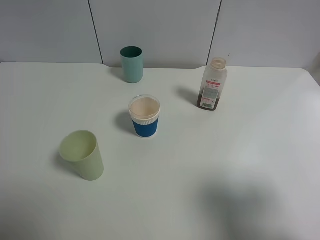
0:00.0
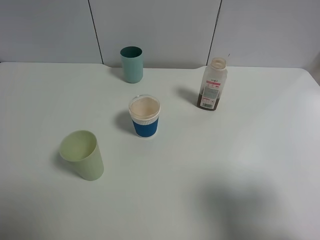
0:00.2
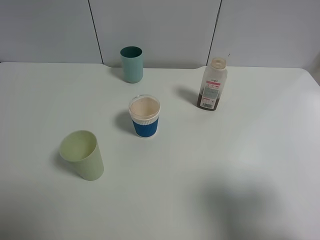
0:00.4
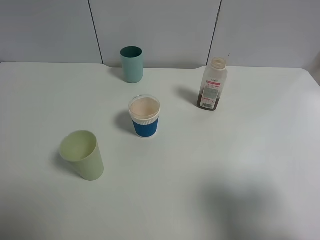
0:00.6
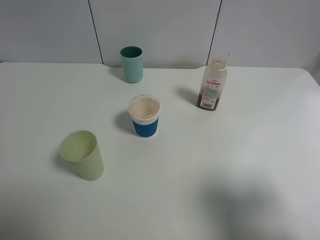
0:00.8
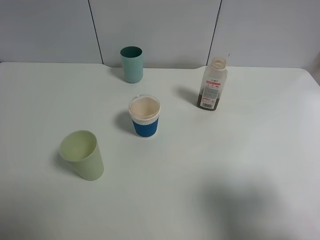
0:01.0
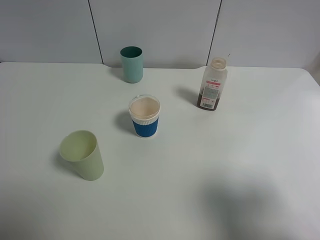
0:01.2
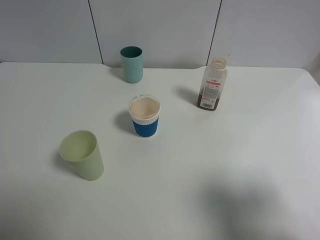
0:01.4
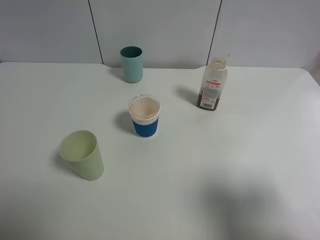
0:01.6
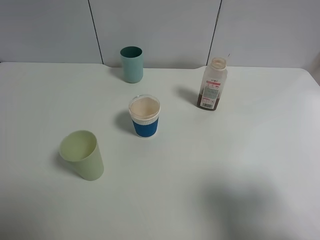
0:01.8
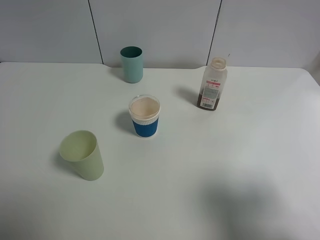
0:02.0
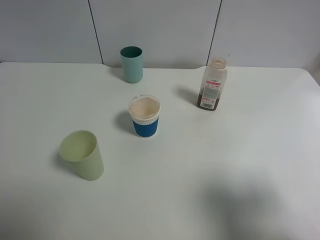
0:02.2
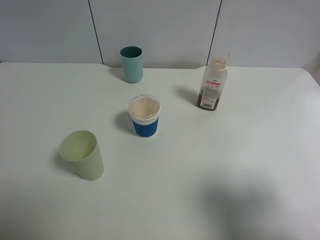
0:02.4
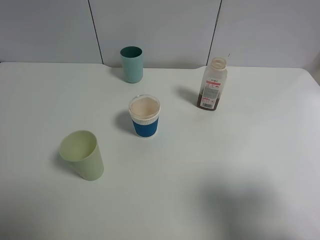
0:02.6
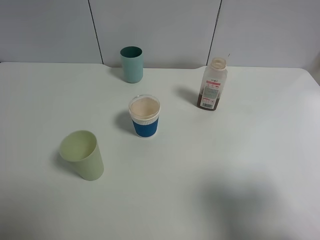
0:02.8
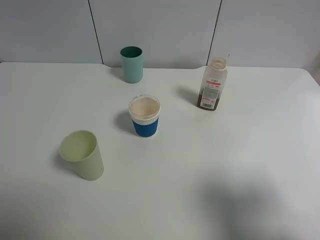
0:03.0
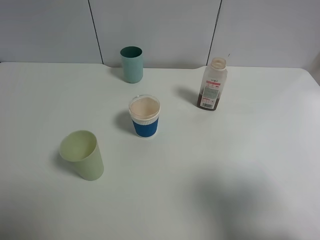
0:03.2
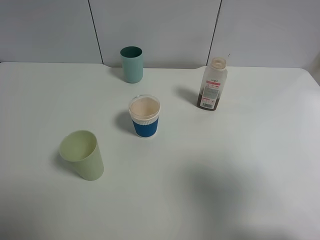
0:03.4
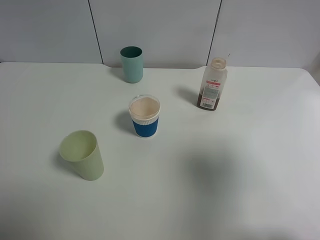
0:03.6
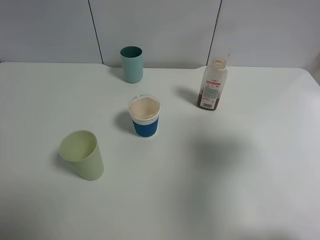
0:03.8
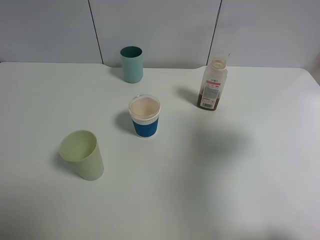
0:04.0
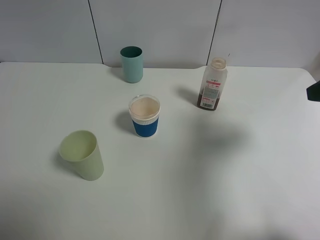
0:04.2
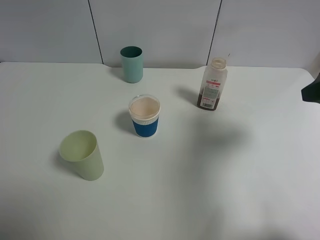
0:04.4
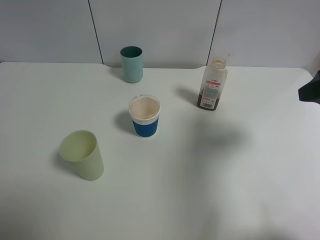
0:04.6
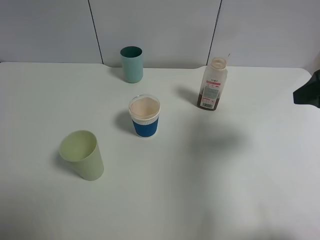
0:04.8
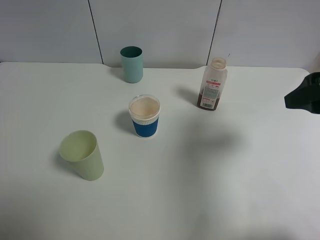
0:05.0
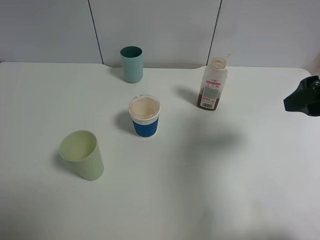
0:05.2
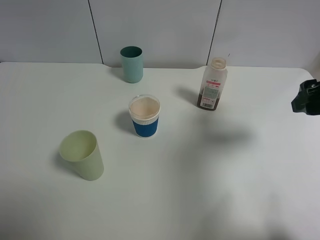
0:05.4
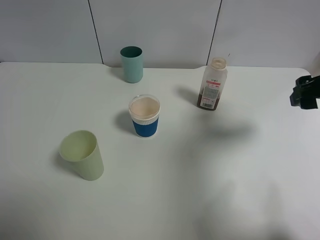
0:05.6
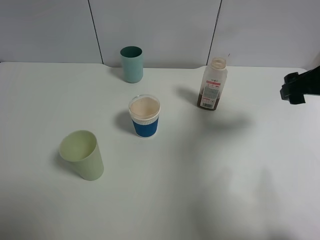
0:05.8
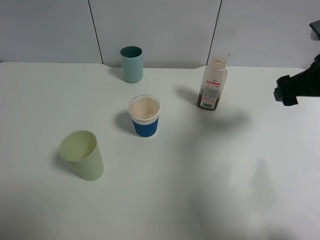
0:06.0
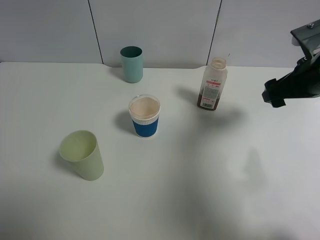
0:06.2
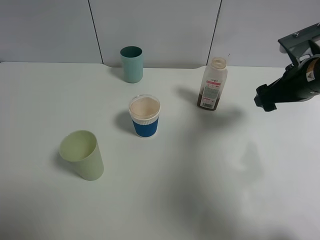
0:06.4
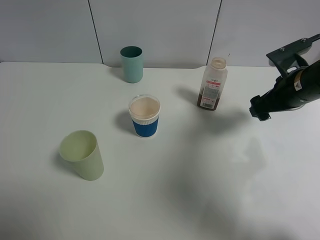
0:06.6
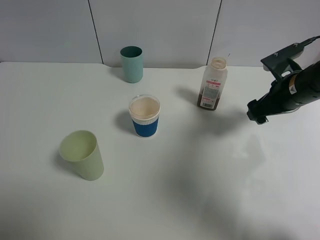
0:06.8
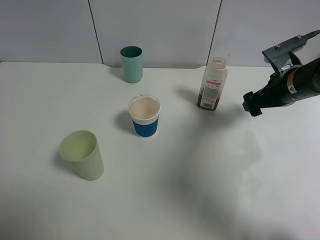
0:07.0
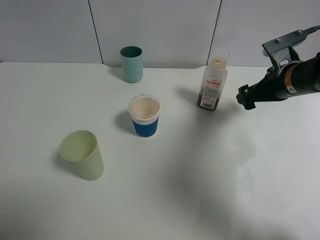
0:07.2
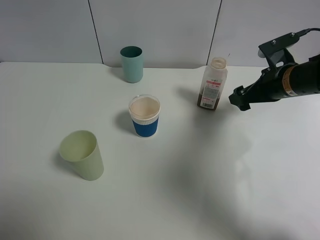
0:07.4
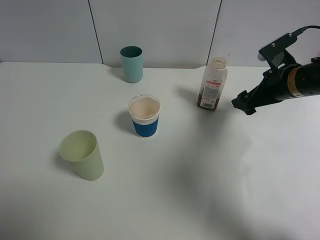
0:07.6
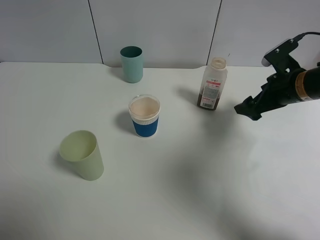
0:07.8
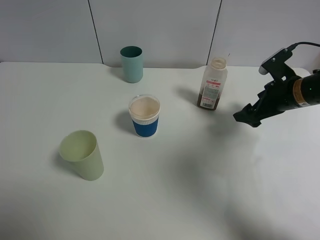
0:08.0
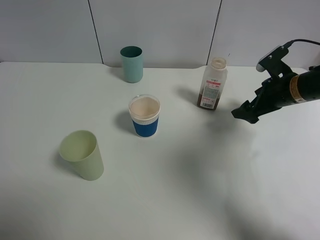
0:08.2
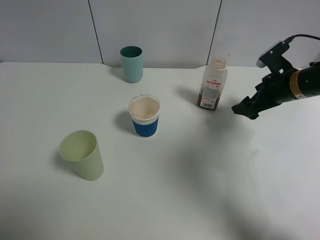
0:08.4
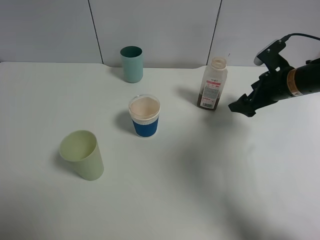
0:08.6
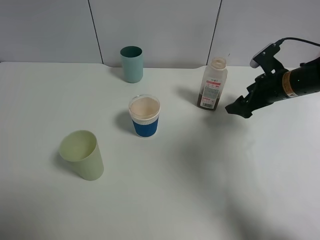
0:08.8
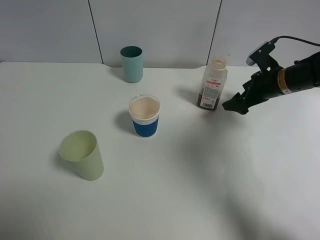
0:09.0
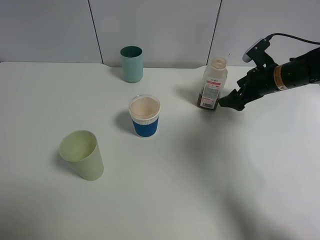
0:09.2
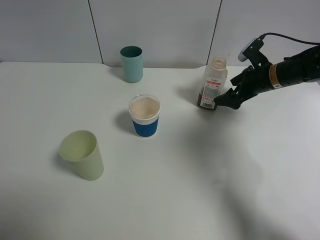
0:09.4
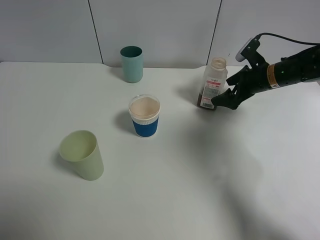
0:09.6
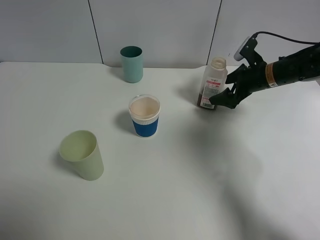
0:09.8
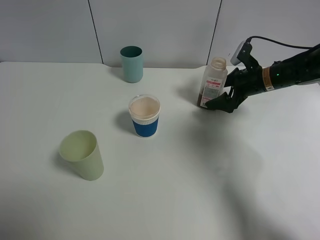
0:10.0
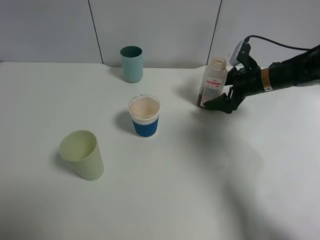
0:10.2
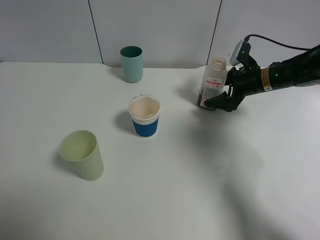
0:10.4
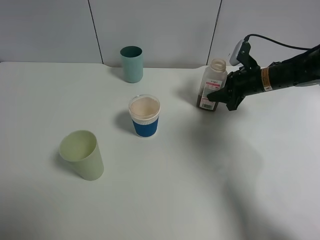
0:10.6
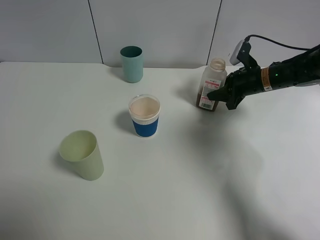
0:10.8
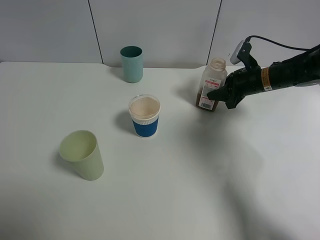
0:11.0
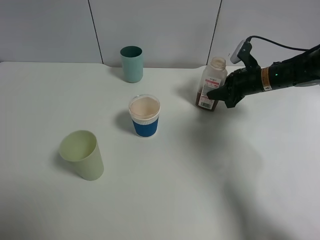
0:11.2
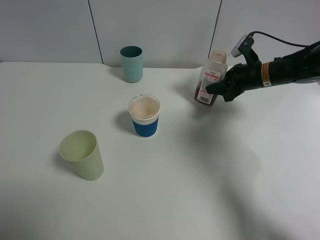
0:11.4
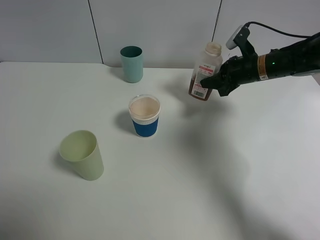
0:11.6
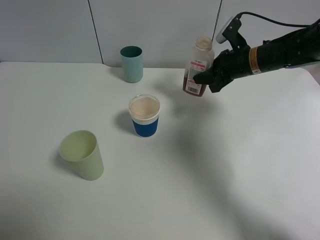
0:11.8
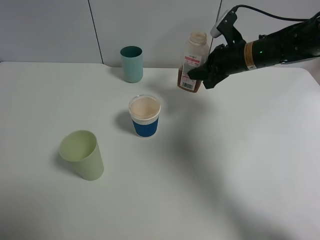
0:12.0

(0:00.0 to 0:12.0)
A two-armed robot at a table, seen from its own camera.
Task of the whole recording: use a gripper to hold the bottle of the drink and pour it into a random cup.
Step, 0:00.0 - 0:10.4: Grasp the cranberry juice bottle with the right gripper.
0:00.0 - 0:03.0: Neither gripper changes place.
0:03.0 - 0:04.4: The right gripper moves forward, approximately 15 cm.
0:04.4 - 0:06.0: The right gripper heads forward and downward, covering roughly 10 cm.
0:06.0 - 0:07.6: The right gripper heads downward and forward, covering roughly 10 cm.
0:07.6 - 0:09.0: The right gripper moves forward, approximately 5 cm.
0:10.4 - 0:12.0: The right gripper moves to the left and upward, roughly 10 cm, and closes its fingers.

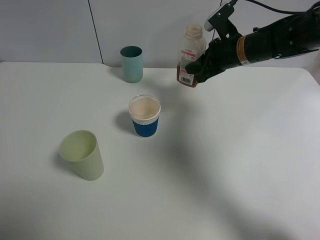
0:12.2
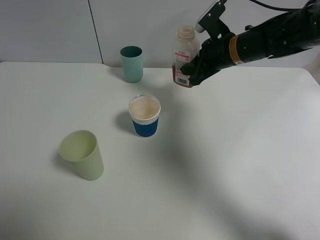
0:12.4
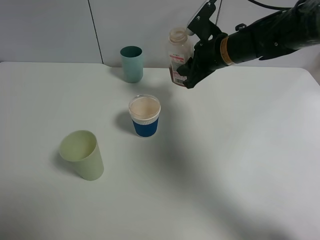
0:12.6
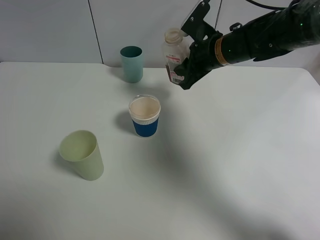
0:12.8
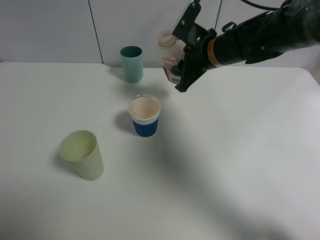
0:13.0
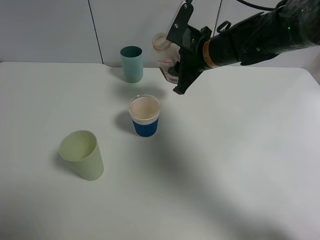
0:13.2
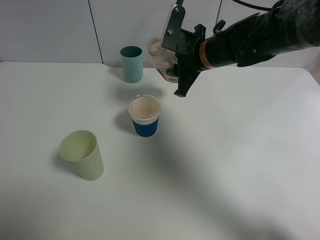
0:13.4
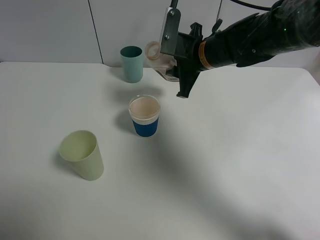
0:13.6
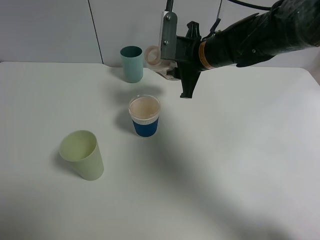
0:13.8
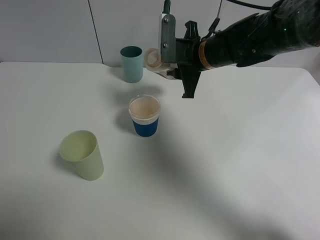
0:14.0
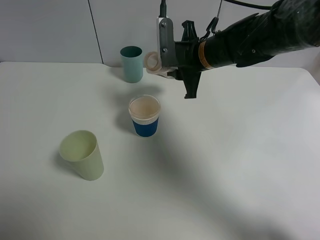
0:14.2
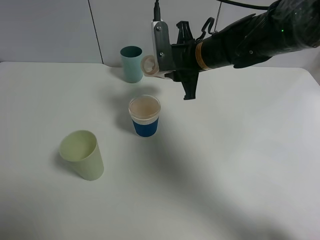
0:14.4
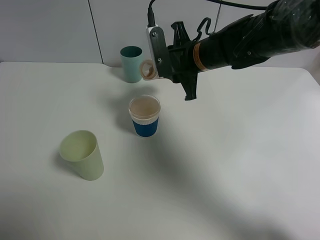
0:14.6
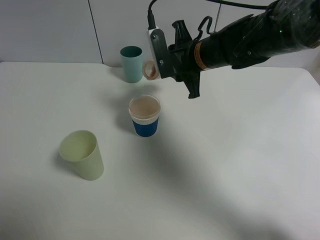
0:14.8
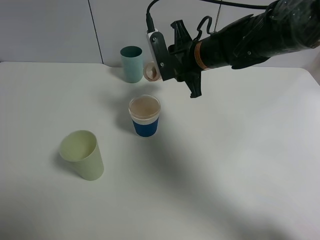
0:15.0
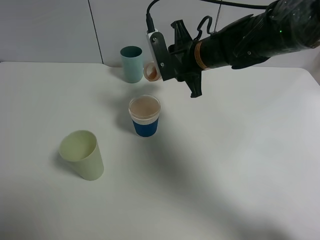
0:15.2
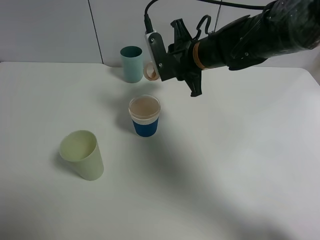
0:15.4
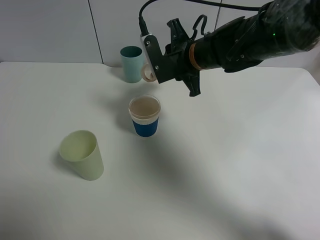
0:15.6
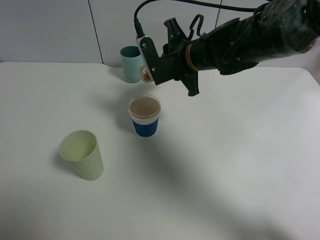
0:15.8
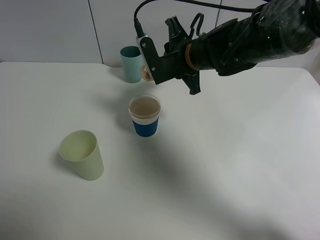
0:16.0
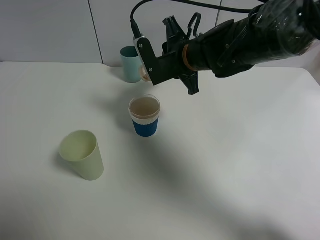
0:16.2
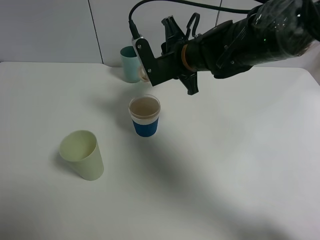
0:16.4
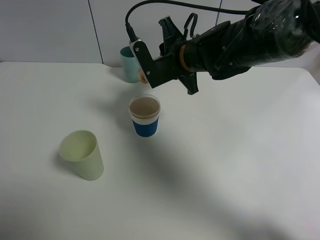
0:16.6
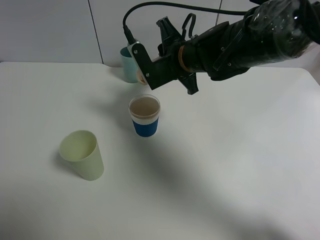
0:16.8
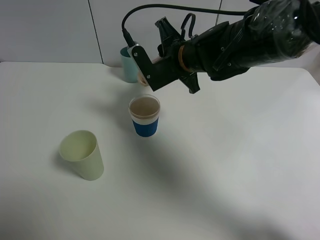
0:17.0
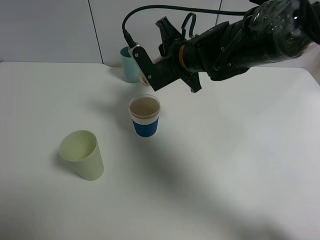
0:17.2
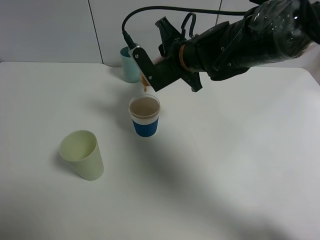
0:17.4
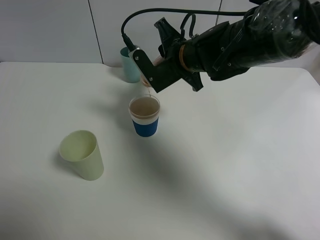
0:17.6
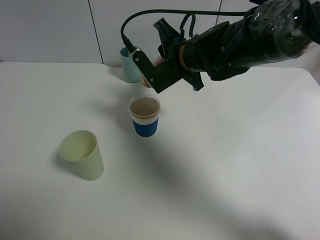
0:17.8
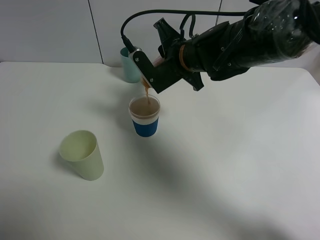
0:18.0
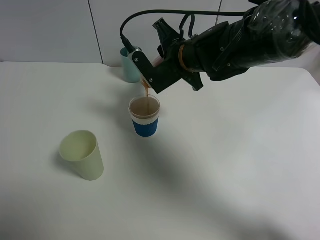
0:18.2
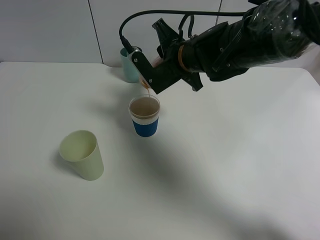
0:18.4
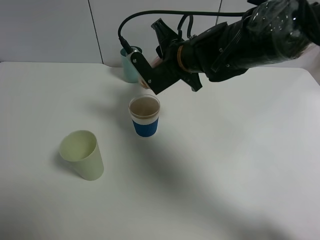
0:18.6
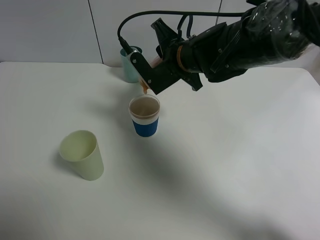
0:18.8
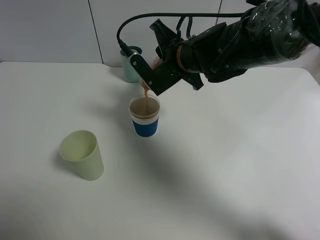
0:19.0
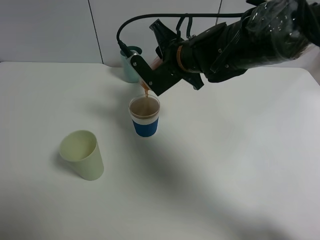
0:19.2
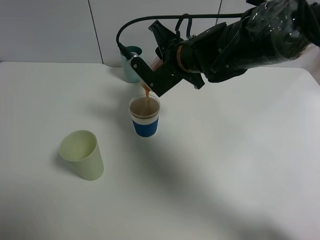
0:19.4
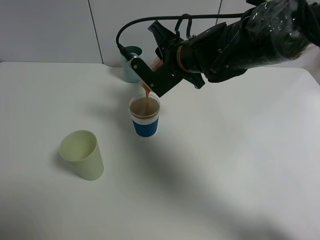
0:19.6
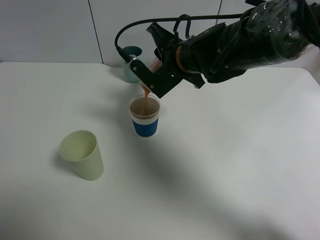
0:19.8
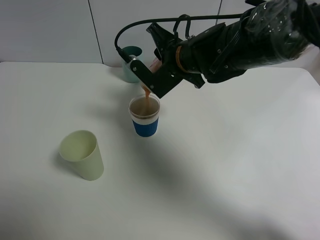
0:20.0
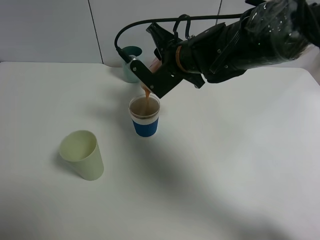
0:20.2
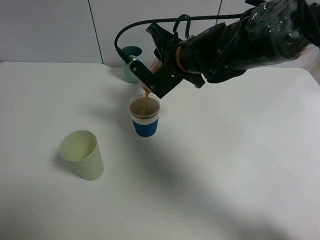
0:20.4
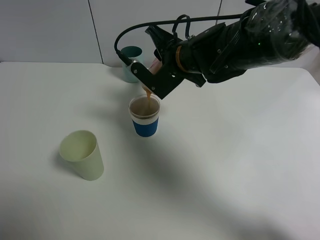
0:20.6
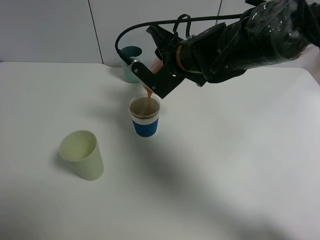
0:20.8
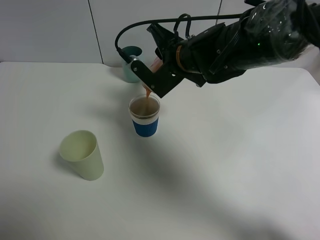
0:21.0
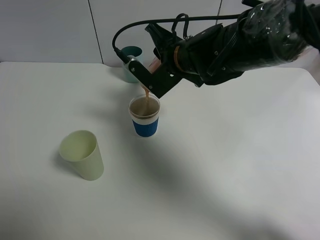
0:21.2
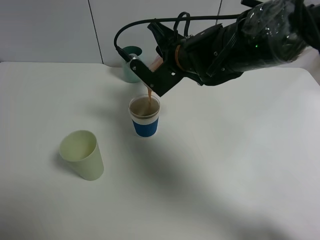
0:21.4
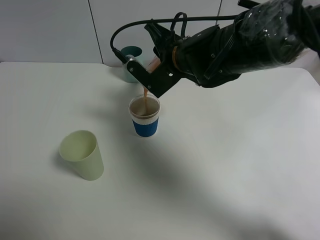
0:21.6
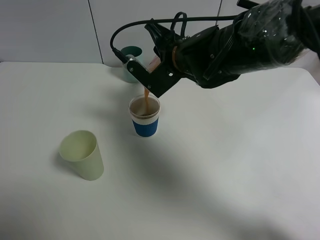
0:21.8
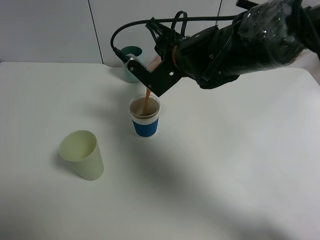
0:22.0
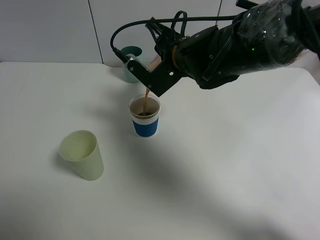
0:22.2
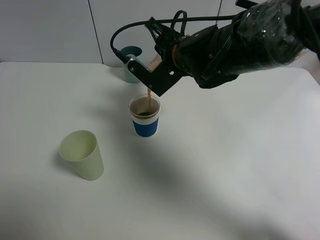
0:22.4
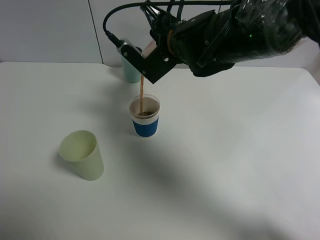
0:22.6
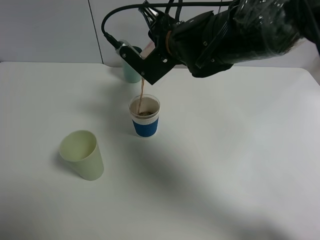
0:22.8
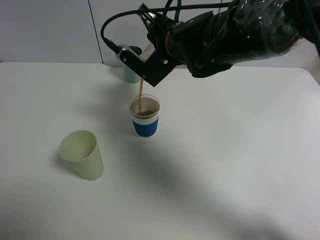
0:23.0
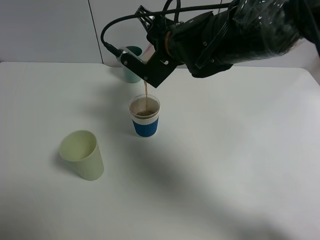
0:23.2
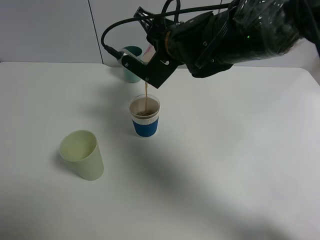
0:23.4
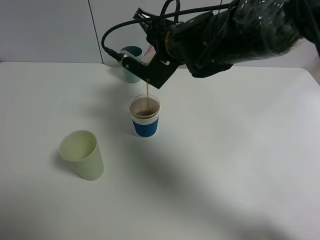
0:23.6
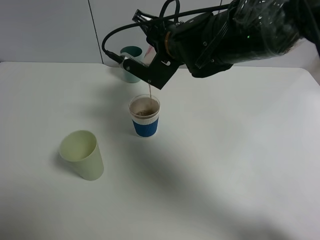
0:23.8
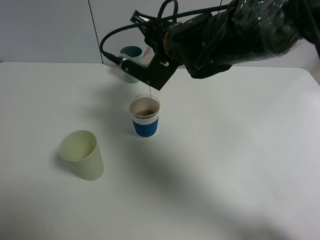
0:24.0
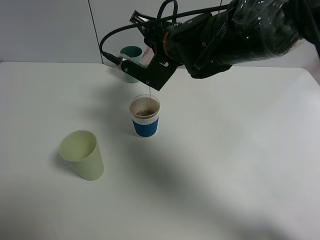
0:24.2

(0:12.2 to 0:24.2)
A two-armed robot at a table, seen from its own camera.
Task of the whole recording: use a gripper to hold the bottle of the drink and pour it into a random cup.
0:12.2 - 0:13.8: The right gripper heads to the left, covering roughly 5 cm.
0:15.2 - 0:16.6: There are only small adjustments of the grippers.
0:16.6 - 0:19.8: The grippers move only a little.
0:19.8 - 0:21.2: Neither gripper changes place.
0:21.2 - 0:24.2: The grippers stay close to where they were, moving slightly.
